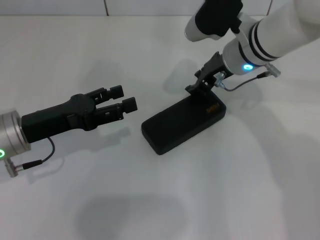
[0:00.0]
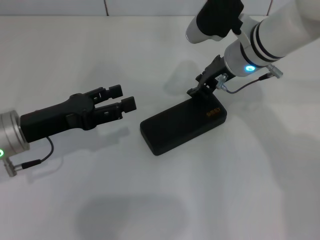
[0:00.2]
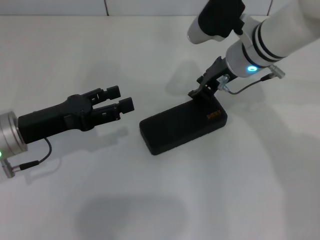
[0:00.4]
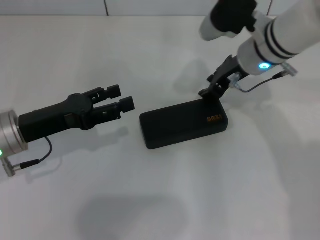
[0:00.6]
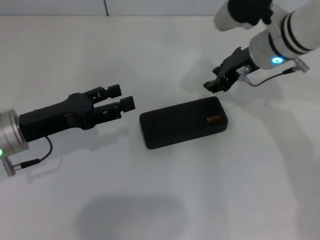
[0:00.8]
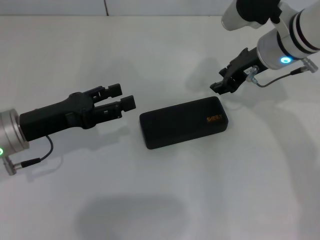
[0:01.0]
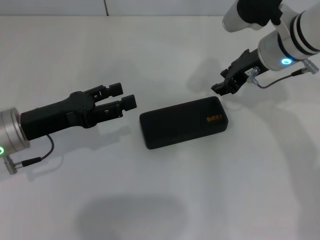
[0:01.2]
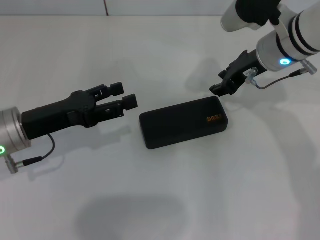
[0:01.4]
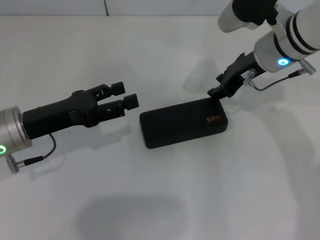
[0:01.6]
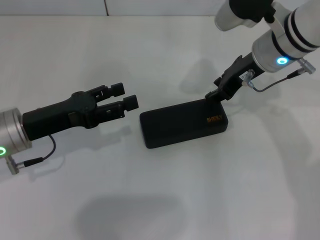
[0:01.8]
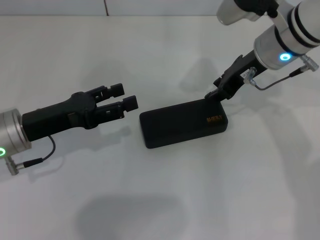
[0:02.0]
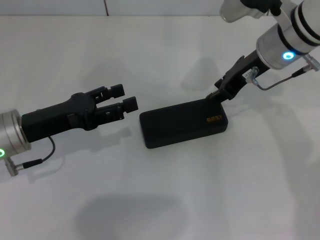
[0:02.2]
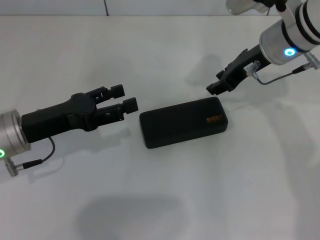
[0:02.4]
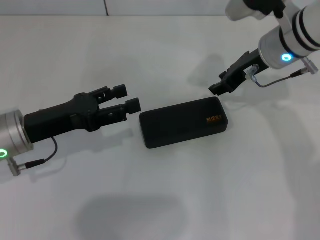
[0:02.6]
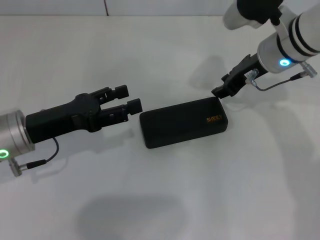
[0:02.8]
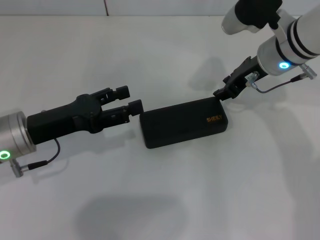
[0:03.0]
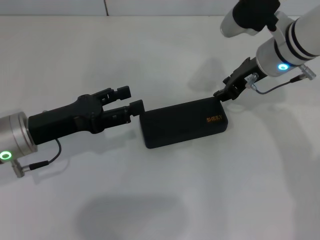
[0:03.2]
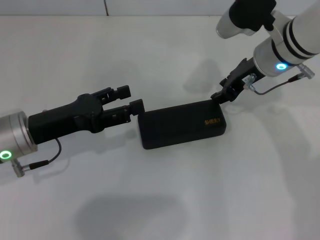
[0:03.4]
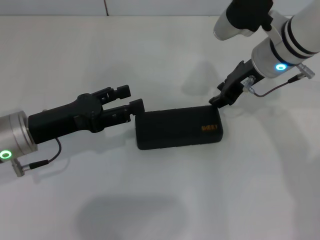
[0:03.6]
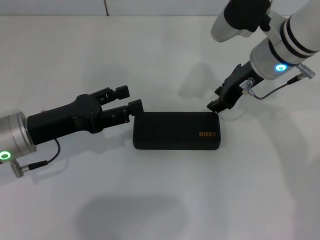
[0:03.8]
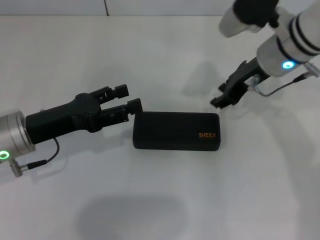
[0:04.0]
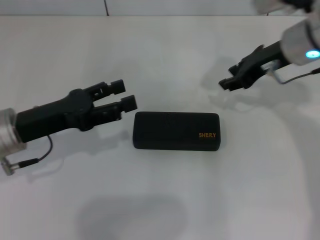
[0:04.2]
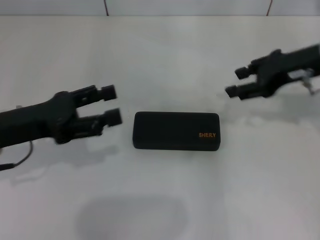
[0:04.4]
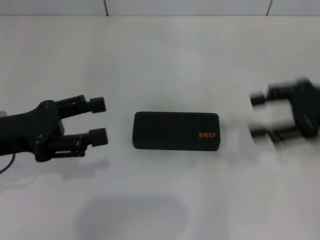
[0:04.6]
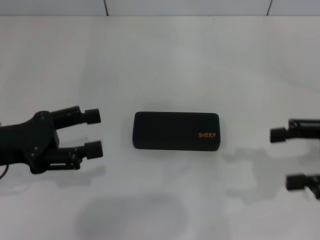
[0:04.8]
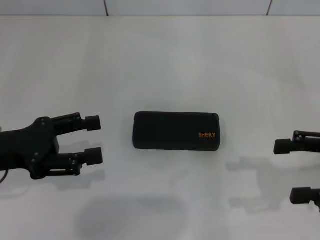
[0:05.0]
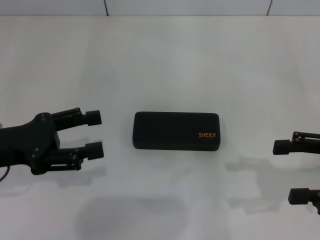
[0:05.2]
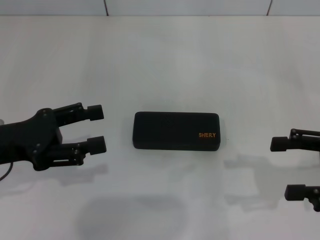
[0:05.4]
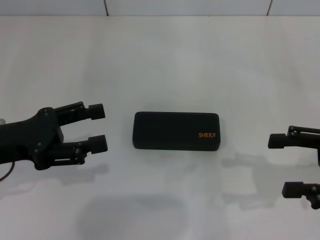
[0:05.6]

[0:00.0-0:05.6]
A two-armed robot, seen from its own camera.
Step, 0:00.0 to 0:04.0: Place the glasses case in the center of the table with your right hand.
0:00.0 to 0:01.4: The right gripper ends up some 5 cm from where it was.
0:01.4 to 0:04.2: The grippers stay close to where they were, moving slightly.
0:04.2 to 0:05.6: The left gripper changes place by roughly 5 cm. Meanwhile the right gripper is displaced backward and to the right by approximately 20 cm, and opens.

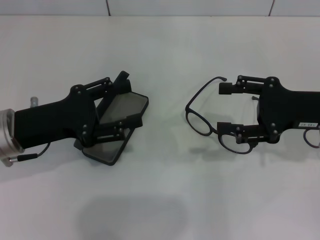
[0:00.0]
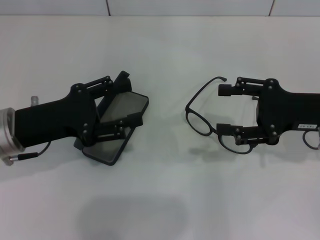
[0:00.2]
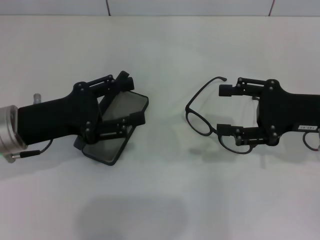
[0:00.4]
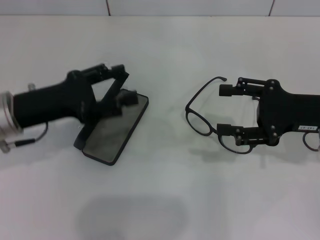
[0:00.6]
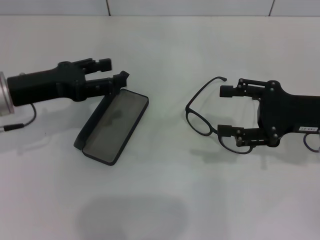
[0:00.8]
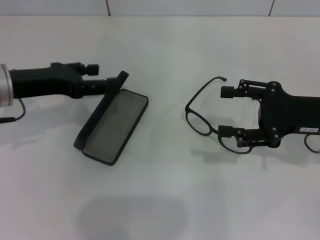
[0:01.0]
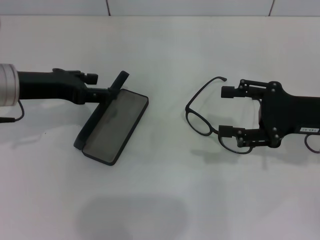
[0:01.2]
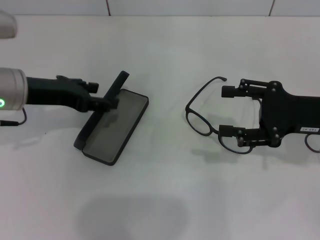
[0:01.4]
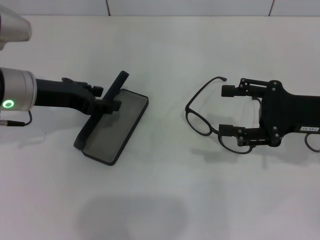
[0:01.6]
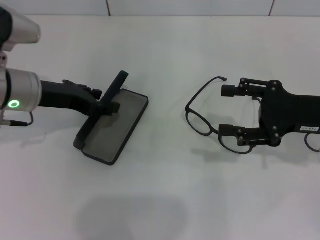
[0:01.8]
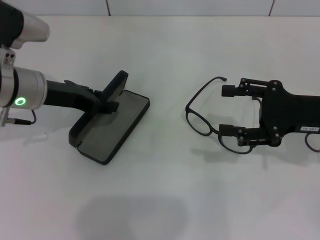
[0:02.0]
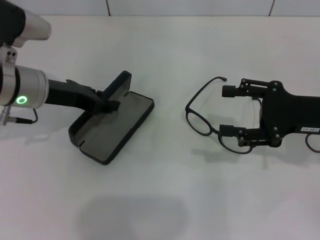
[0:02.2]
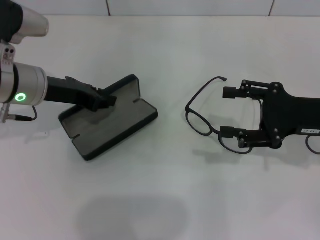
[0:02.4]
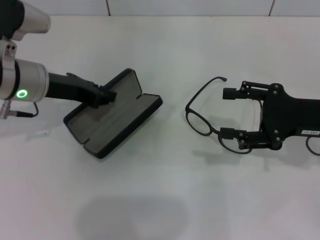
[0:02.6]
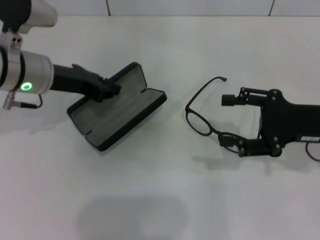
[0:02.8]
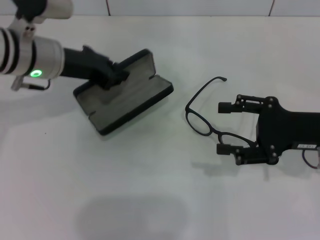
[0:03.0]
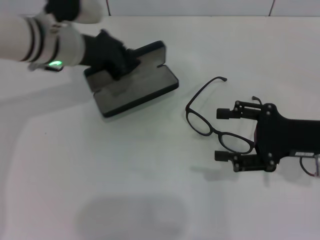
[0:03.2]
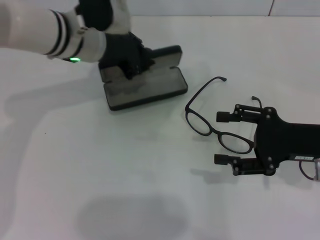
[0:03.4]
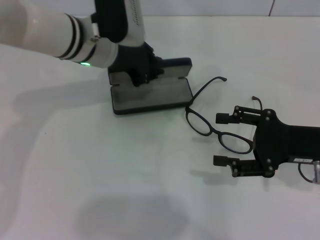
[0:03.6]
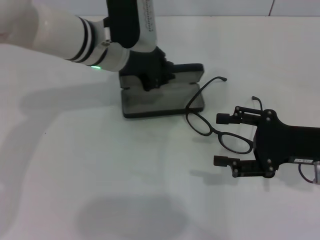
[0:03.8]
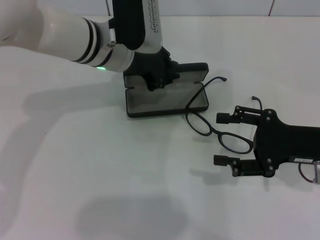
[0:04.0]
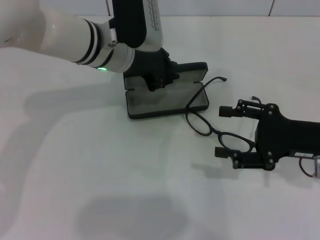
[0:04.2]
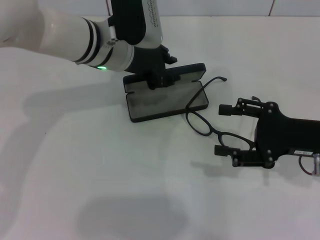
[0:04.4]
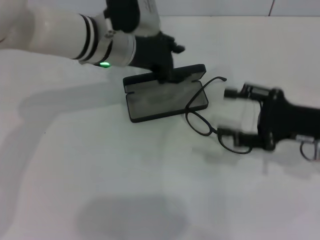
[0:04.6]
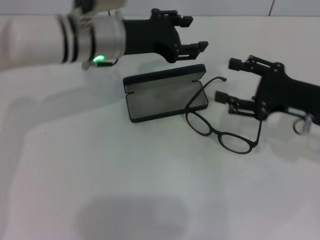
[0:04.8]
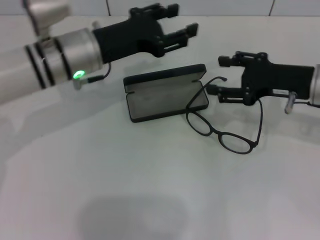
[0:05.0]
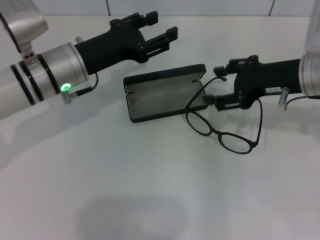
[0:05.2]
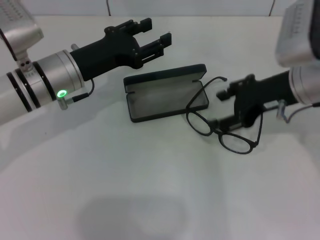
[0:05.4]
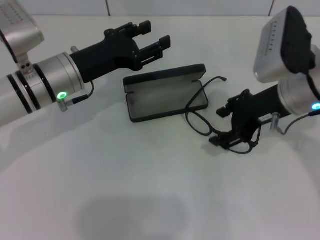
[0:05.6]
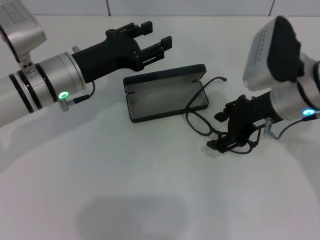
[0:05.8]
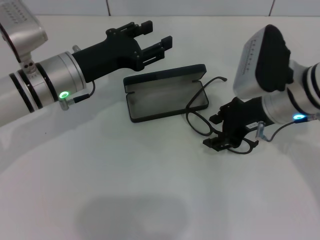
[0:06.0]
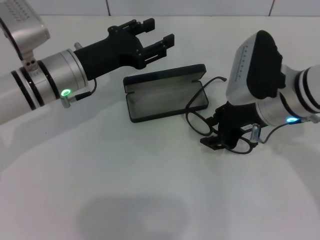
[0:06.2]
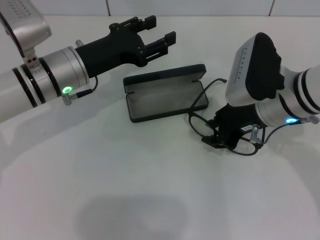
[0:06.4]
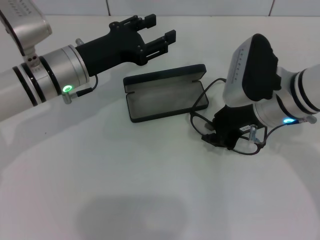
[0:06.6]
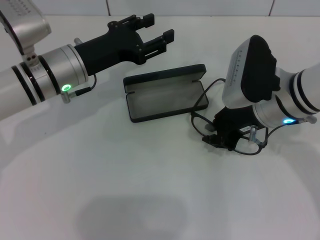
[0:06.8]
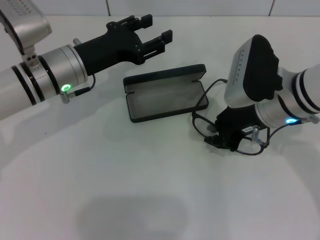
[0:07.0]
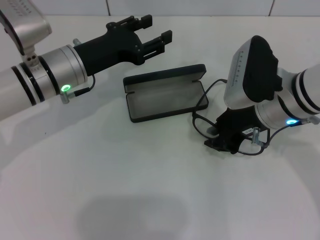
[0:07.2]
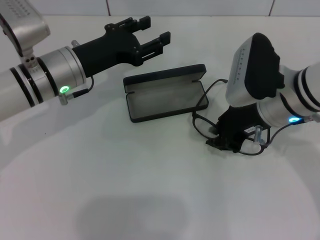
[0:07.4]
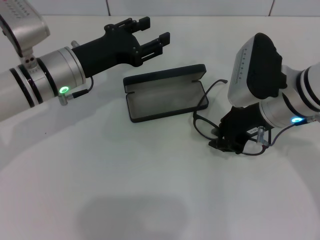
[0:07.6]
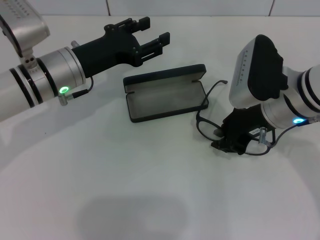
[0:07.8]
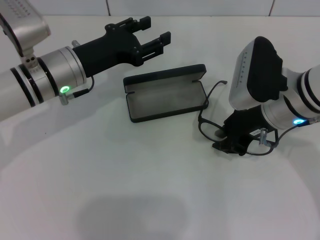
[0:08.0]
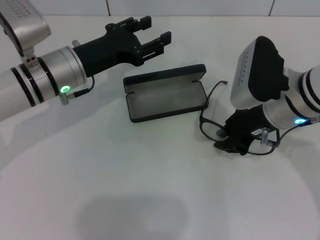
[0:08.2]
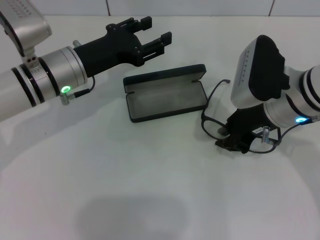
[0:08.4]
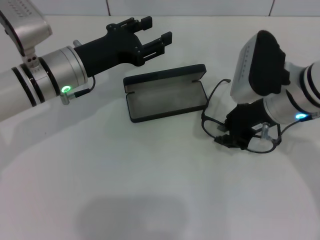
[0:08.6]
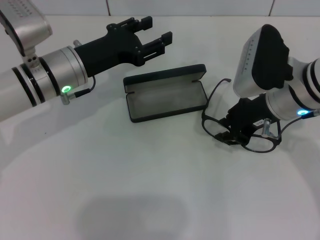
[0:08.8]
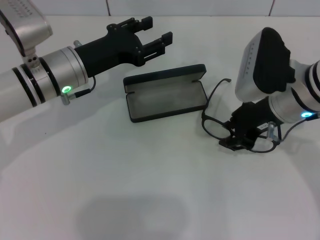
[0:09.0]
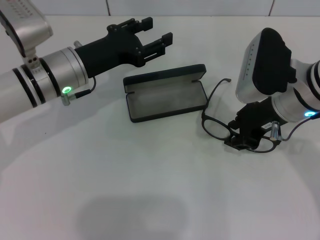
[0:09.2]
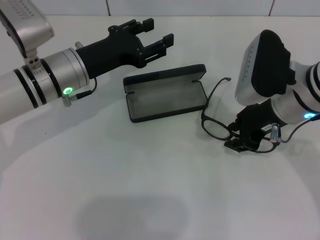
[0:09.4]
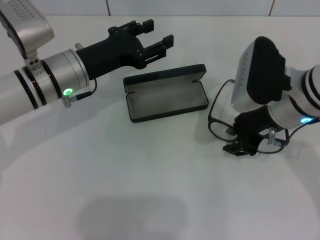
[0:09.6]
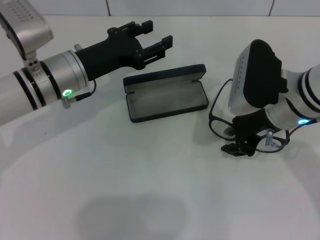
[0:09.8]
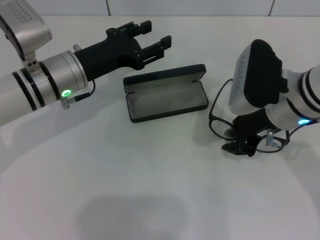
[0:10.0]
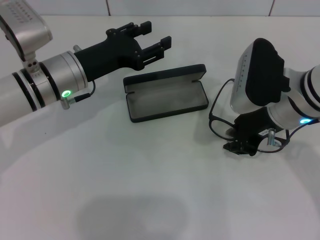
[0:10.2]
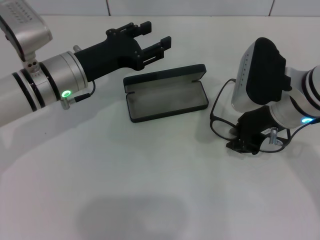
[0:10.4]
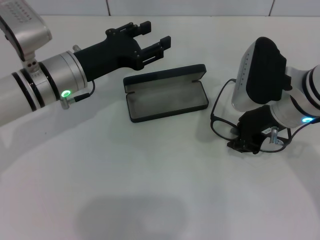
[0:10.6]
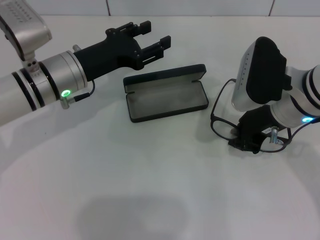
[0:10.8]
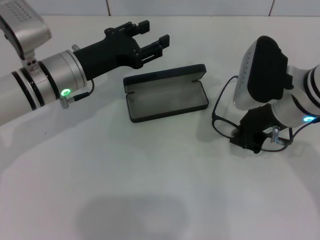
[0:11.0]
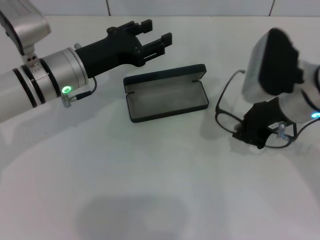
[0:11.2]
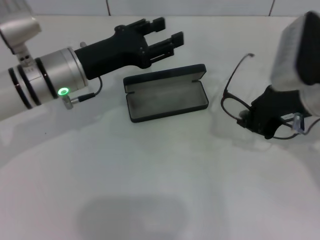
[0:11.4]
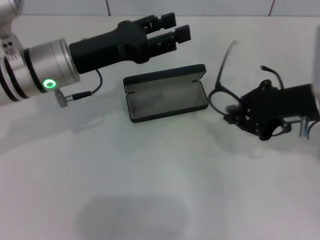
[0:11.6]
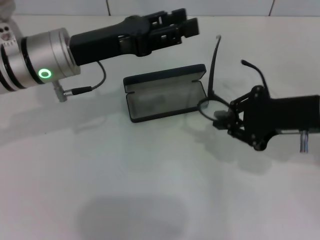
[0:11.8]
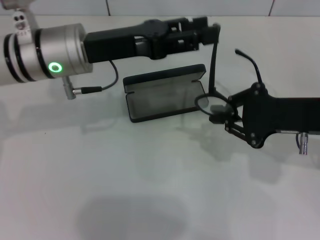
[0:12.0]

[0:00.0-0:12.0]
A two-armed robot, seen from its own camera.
Step, 0:00.0 to 0:02.4: Grab the glasses case with your left hand.
Step, 0:02.6 to 0:04.4: Place the glasses case in the center of the table with your left hand.
Step, 0:04.6 to 0:10.8: Grab the eyeglass frame with your right hand.
0:00.0 to 0:01.6: The left gripper is displaced forward by approximately 5 cm.
0:01.6 to 0:03.0: The left gripper changes place by some 5 cm, and closes up.
0:03.0 to 0:04.4: The left gripper shifts approximately 10 cm to the right.
0:04.4 to 0:06.0: The right gripper shifts some 10 cm to the left and forward. The left gripper goes roughly 10 cm to the left and backward, and opens up.
0:06.0 to 0:07.6: The right gripper closes.
0:07.6 to 0:09.0: Both grippers stay about where they are.
0:09.0 to 0:10.4: There are only small adjustments of the grippers.
0:10.4 to 0:12.0: The right gripper moves to the right, approximately 5 cm; the left gripper moves upward, some 5 cm.

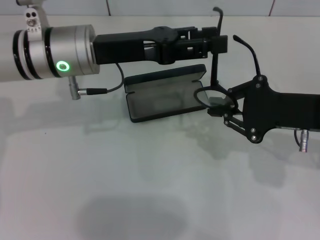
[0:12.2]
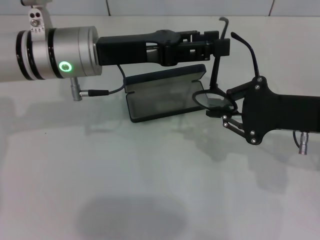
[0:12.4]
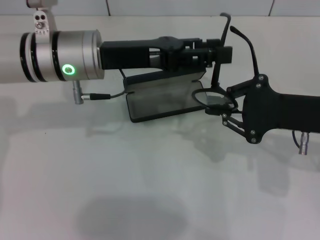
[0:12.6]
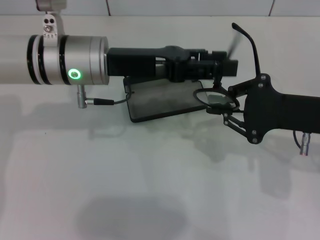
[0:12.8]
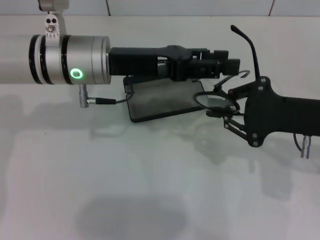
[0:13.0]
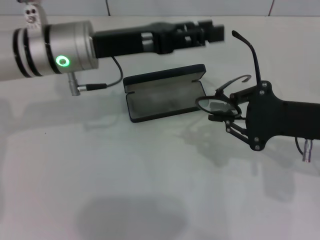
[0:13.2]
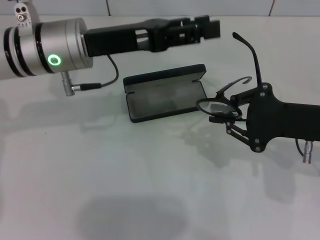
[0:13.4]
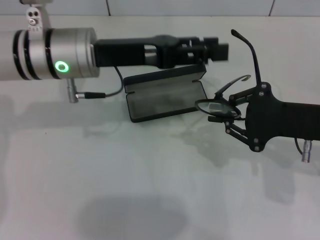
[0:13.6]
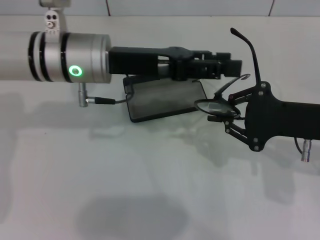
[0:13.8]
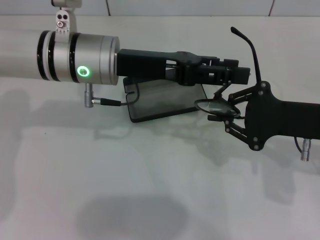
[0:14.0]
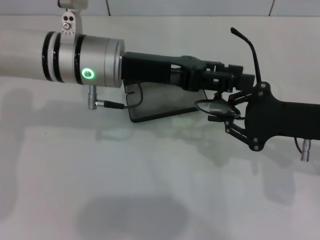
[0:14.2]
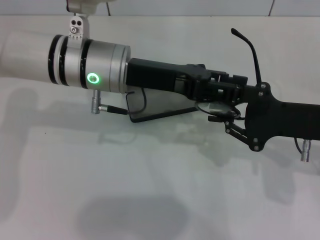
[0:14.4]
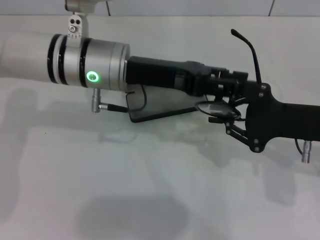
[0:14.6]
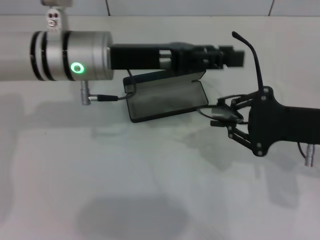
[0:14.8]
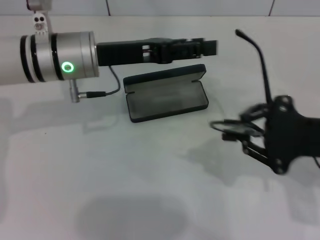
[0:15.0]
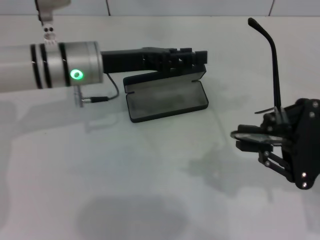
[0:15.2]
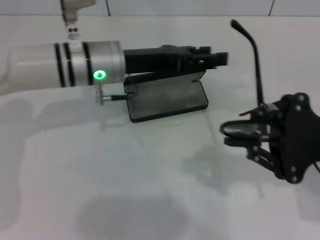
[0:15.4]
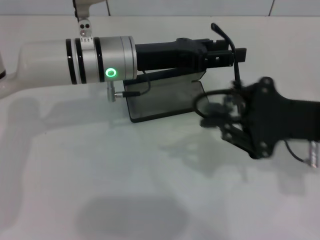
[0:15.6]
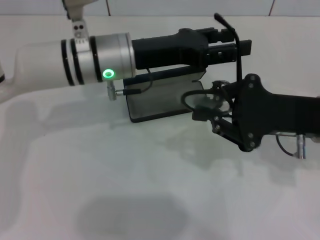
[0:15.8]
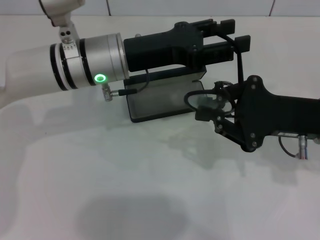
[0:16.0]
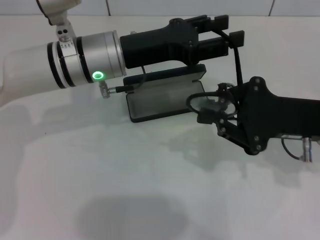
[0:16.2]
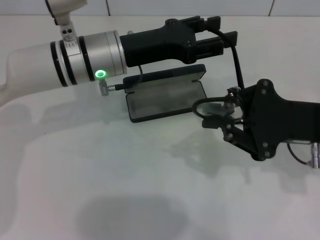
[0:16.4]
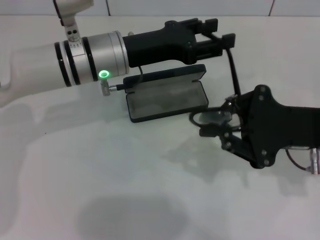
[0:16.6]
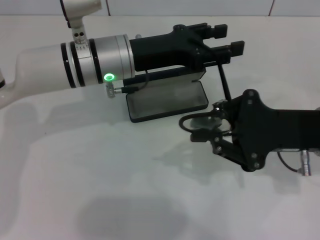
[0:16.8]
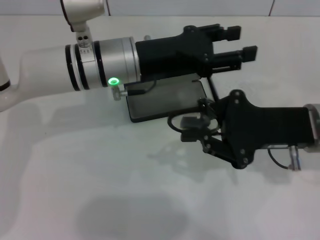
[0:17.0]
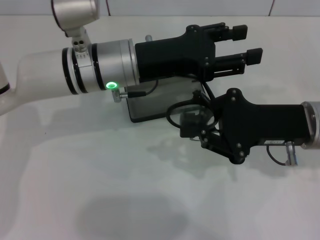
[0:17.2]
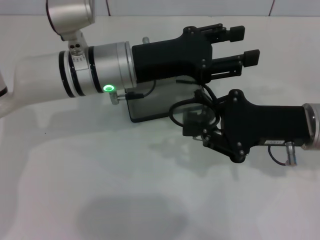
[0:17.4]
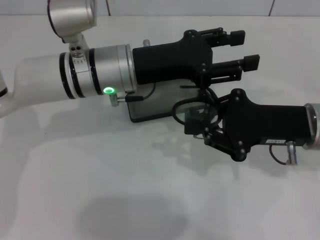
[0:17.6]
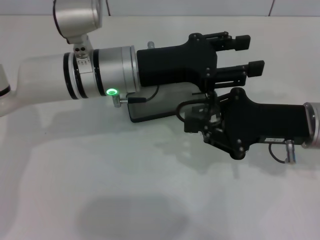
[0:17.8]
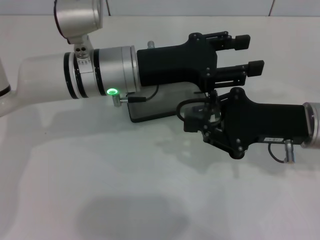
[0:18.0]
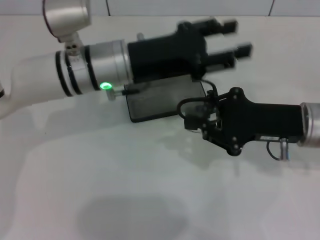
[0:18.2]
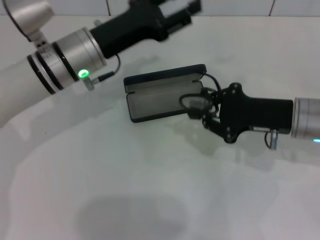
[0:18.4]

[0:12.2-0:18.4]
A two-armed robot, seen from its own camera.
Step, 0:12.2 to 0:18.0: Fold the frame with your left hand.
0:12.2 to 0:13.8: There are only small adjustments of the grippers.
